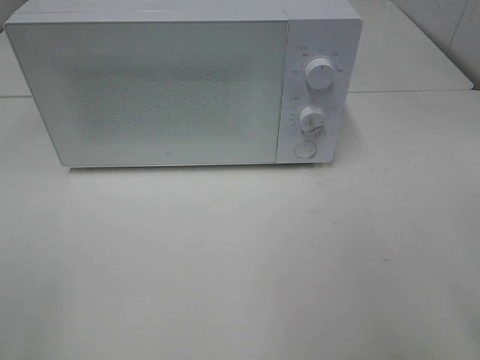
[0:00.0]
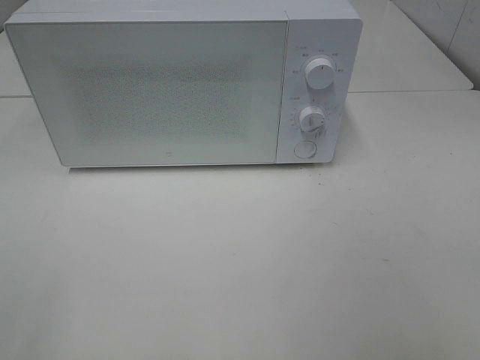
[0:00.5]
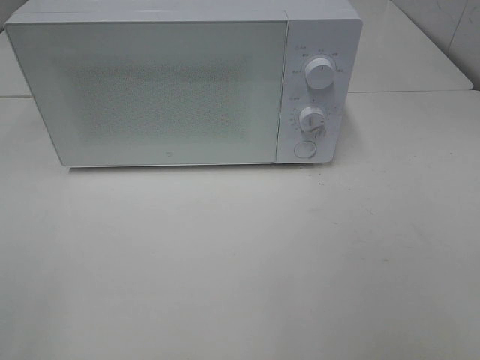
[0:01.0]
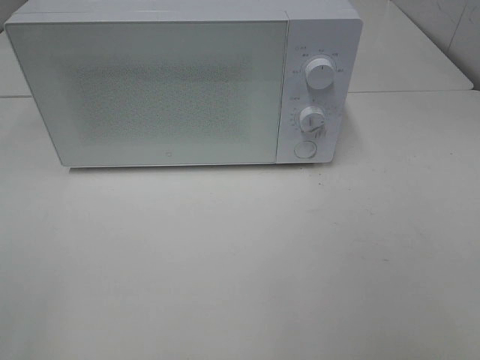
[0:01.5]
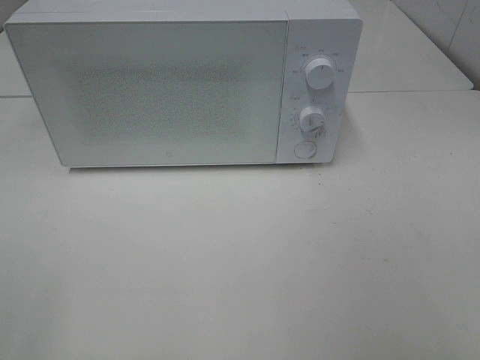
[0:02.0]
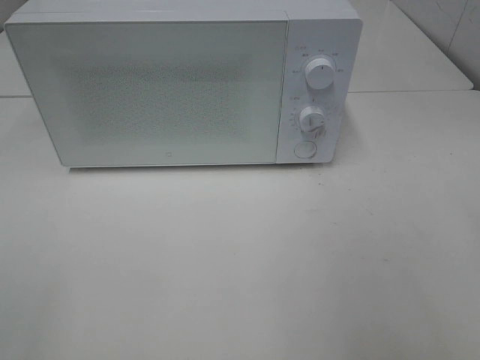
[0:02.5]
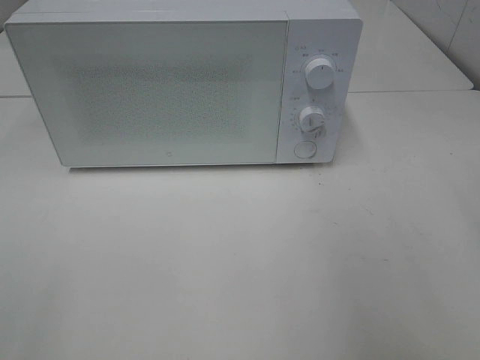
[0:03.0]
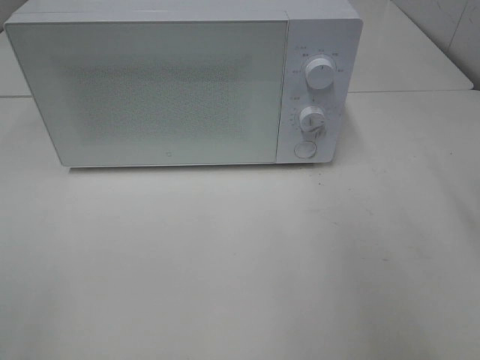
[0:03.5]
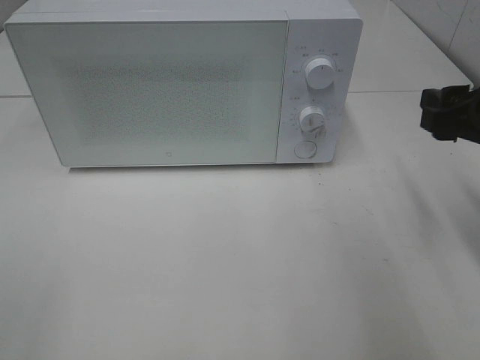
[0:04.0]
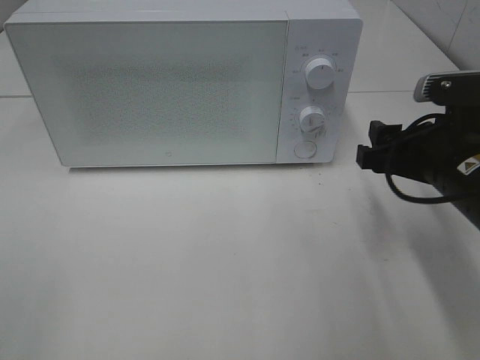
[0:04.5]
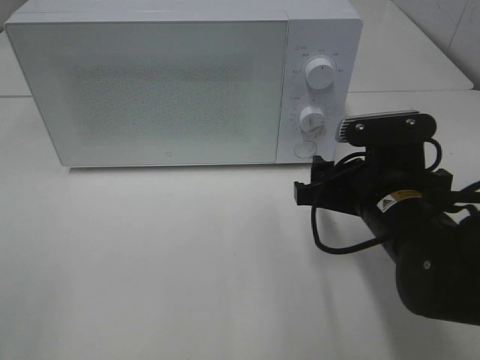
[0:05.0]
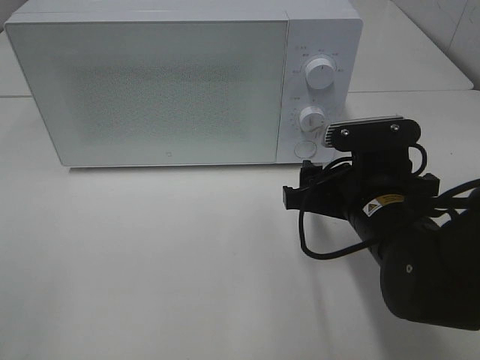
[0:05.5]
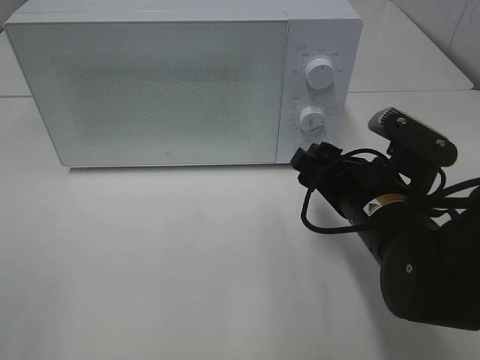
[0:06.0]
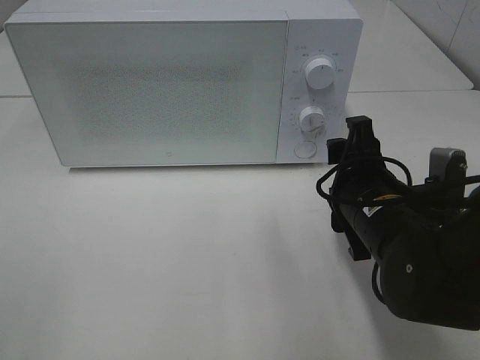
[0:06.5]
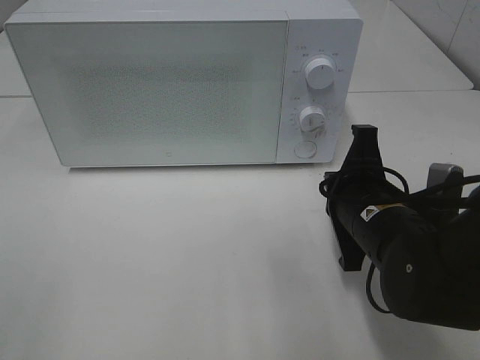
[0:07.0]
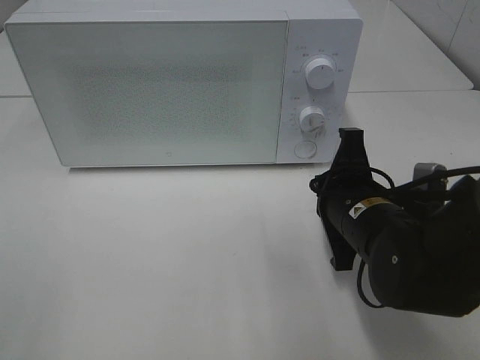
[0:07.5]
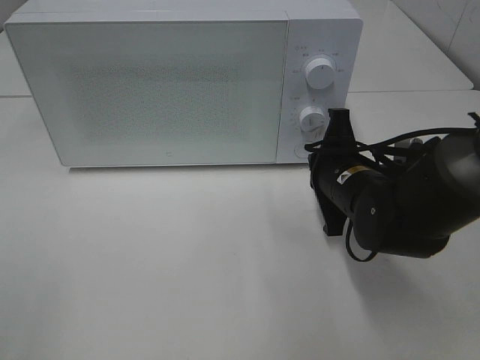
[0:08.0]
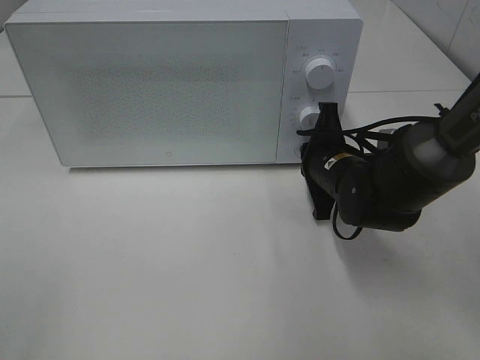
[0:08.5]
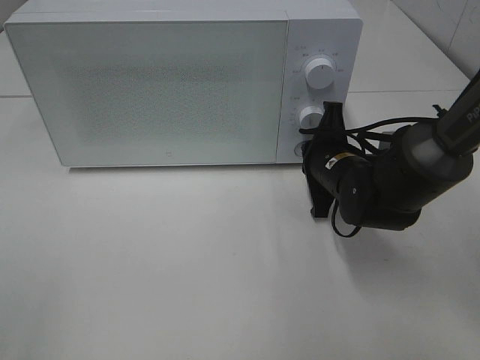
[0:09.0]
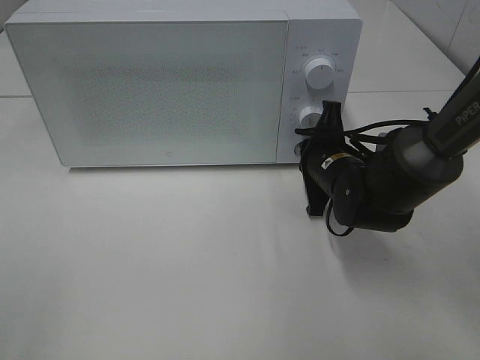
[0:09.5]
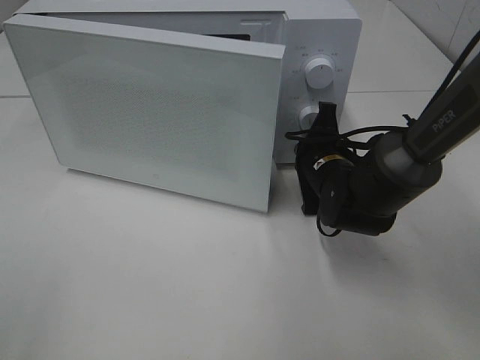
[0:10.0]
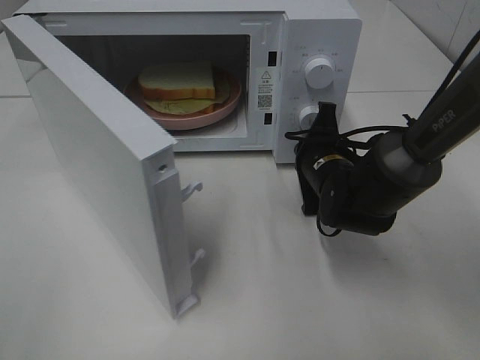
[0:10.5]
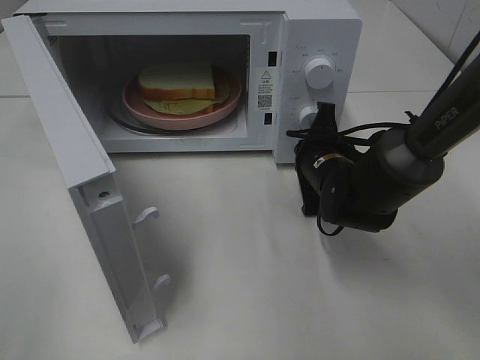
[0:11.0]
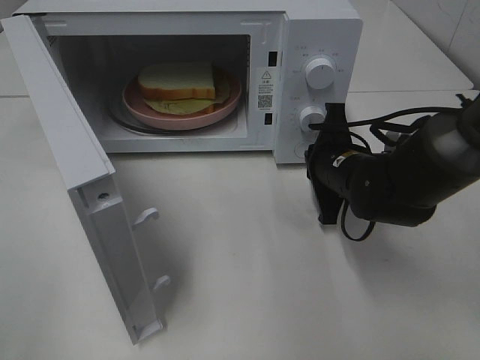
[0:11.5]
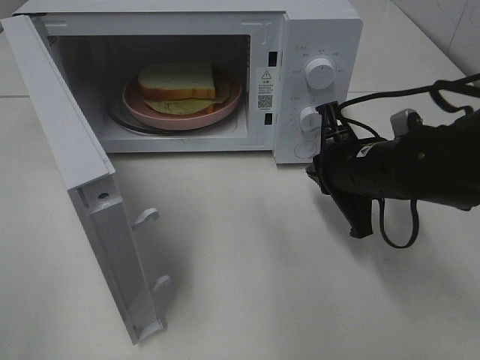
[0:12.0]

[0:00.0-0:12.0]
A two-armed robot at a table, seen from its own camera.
Task of the whole recording: Heat Sandwich.
Step, 0:00.0 to 0:11.5: Right hand: press the switch.
0:02.0 to 0:04.0: The right gripper travels forward by some 25 cm.
0:04.0 to 0:06.0: The right gripper moves to the left and downward, about 15 cm.
0:06.0 to 0:08.0: The right gripper heads forward, covering about 5 cm, and closes up.
0:08.0 to 0:10.0: The right gripper travels forward by some 5 cm.
0:10.0 to 0:12.0: The right gripper moves backward and upward, approximately 10 cm.

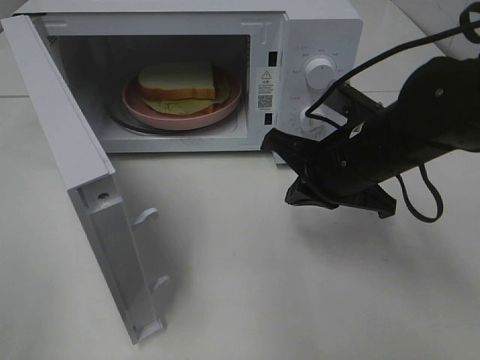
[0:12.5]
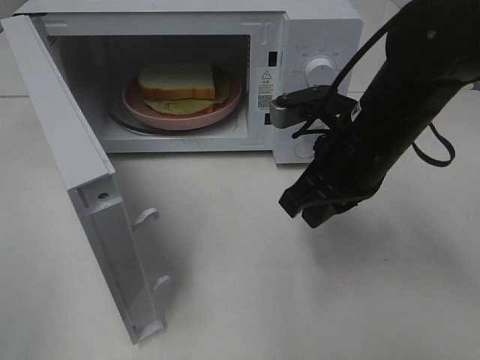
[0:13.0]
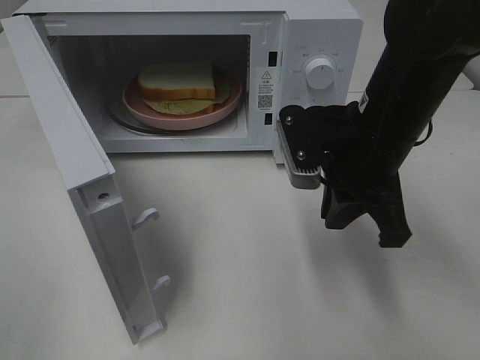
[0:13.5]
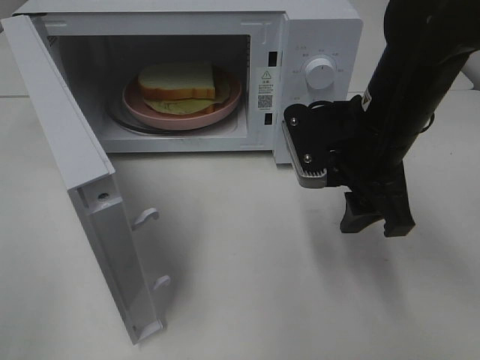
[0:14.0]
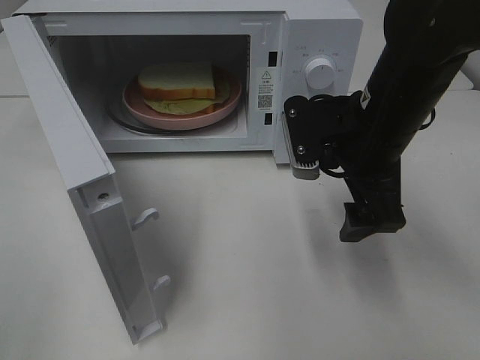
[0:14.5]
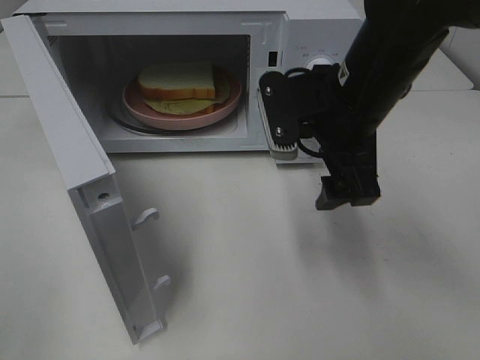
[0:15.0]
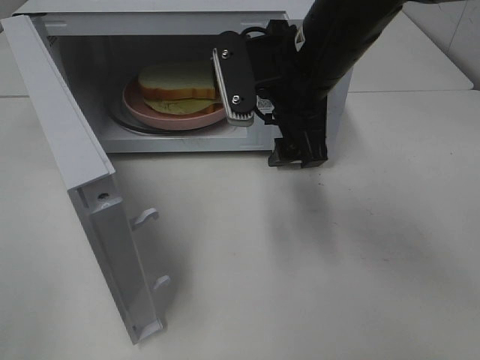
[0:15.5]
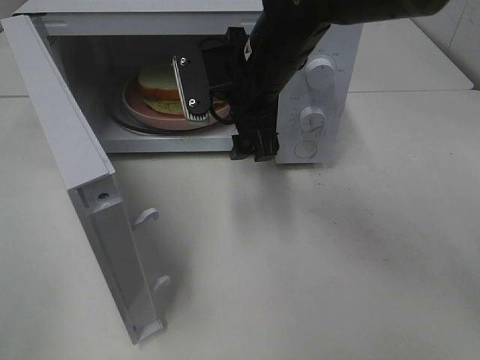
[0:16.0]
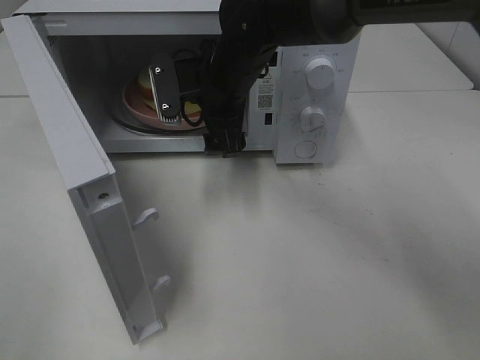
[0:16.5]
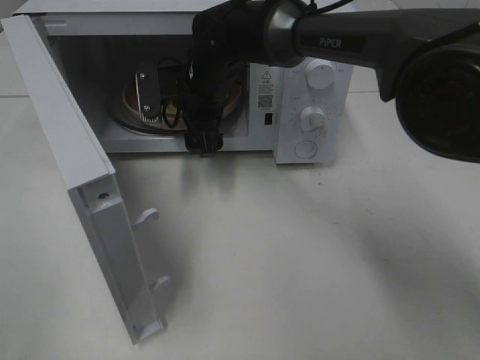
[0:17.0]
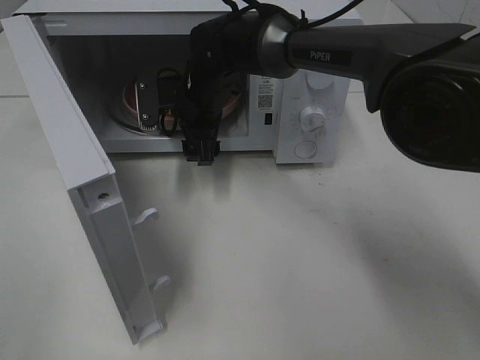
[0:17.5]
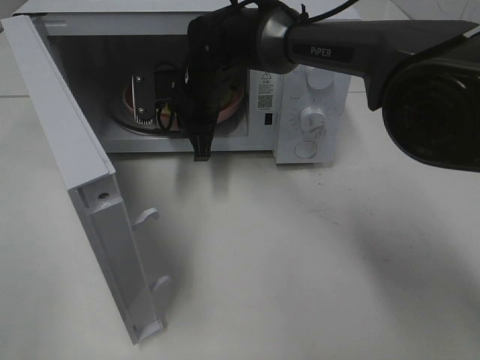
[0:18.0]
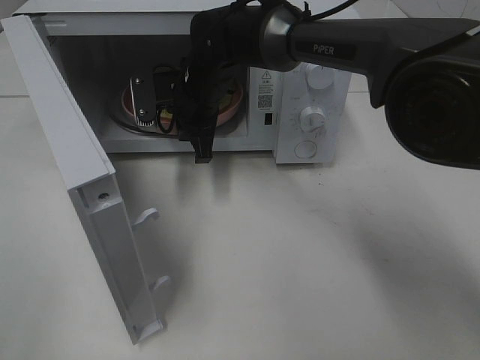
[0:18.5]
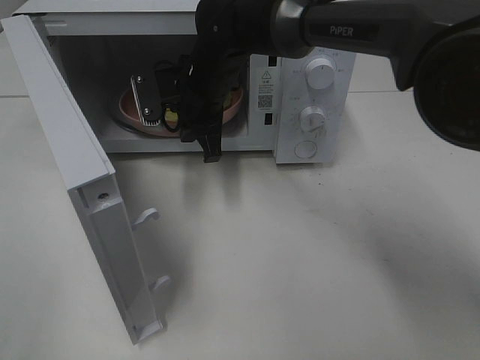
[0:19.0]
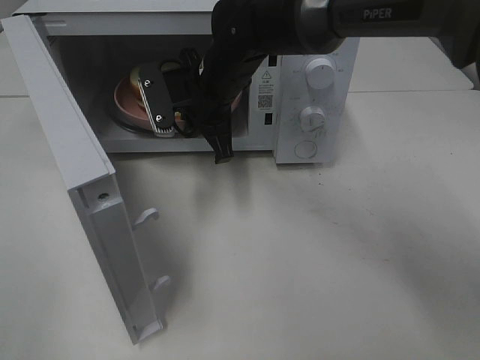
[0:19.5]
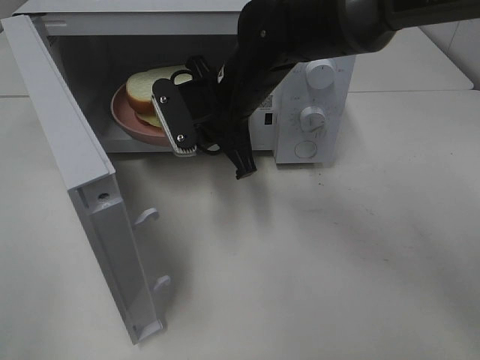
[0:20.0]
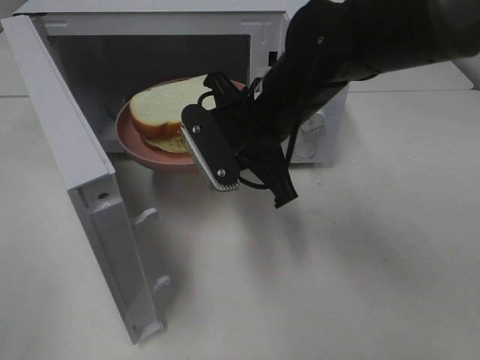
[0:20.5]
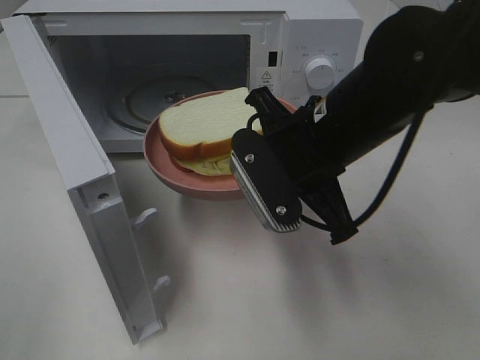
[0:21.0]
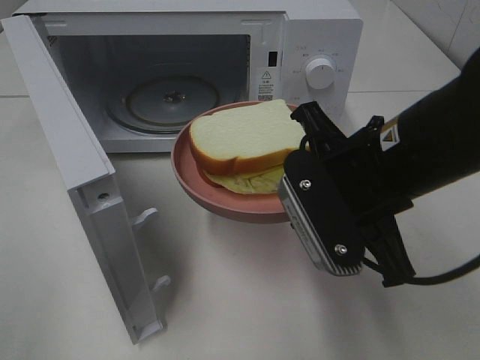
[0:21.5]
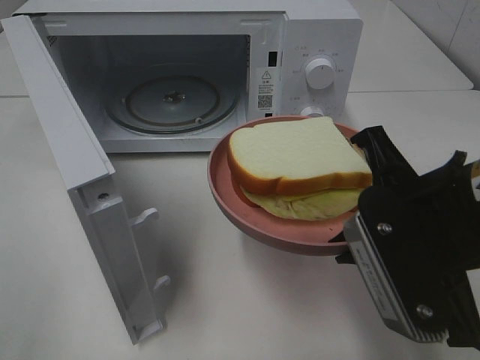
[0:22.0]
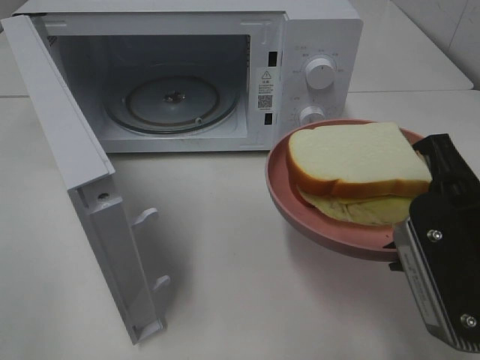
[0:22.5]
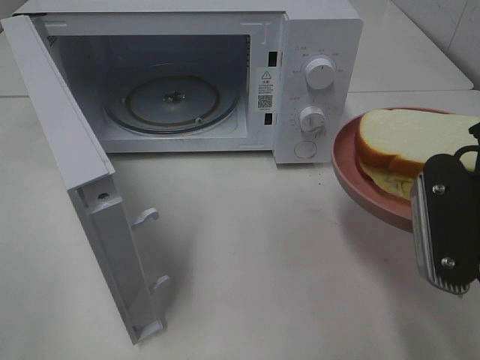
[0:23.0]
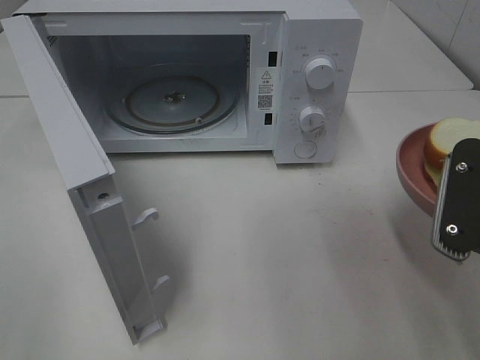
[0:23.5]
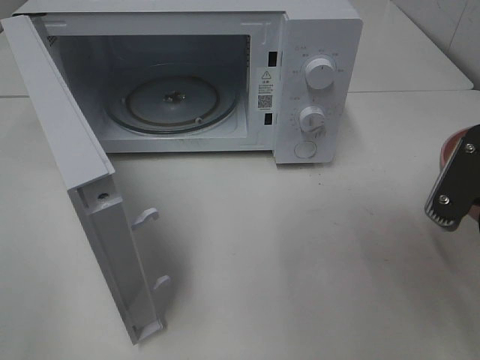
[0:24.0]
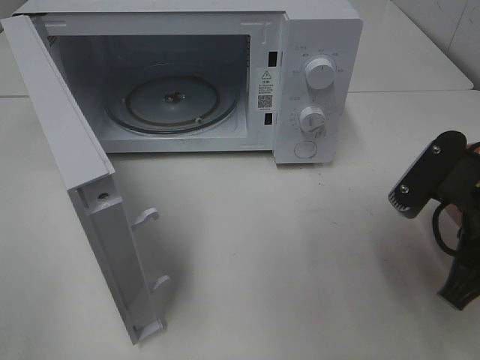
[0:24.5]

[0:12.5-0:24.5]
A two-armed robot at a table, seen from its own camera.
Task of the whole recording: Heat Sandwich.
Step, 0:12.5 to 0:18.0: Right hand: grab the plate with the sandwich.
0:12.5 to 0:14.5: The right gripper opens its fingers.
0:14.5 to 0:16.5: The right gripper goes some 20 cm to the left and forward.
0:16.5 to 0:18.5: The right gripper moves roughly 5 cm, and closes.
0:18.5 to 0:20.5: The right gripper heads backward and to the right, covering roughly 15 cm.
0:20.5 to 0:22.5: The right gripper is displaced backward and to the right by roughly 20 cm.
0:22.5 to 0:24.5: The right gripper shifts by some 5 cm.

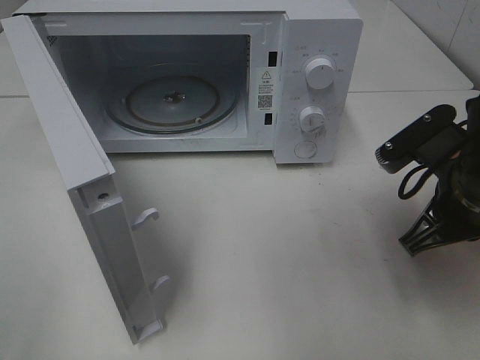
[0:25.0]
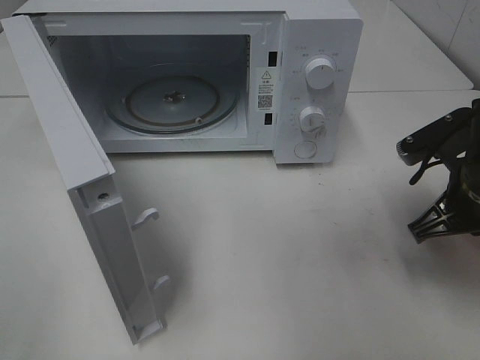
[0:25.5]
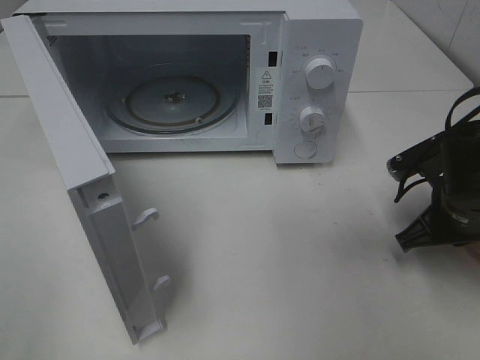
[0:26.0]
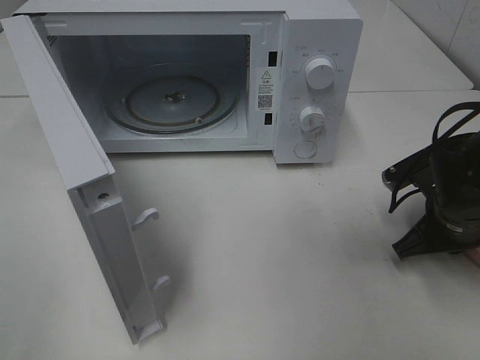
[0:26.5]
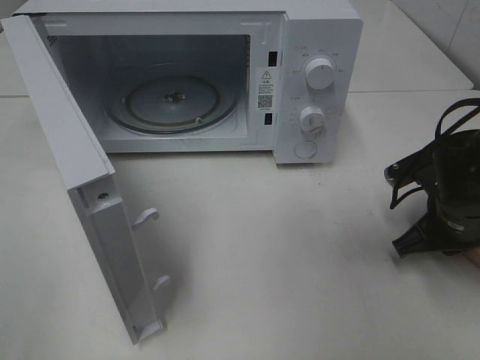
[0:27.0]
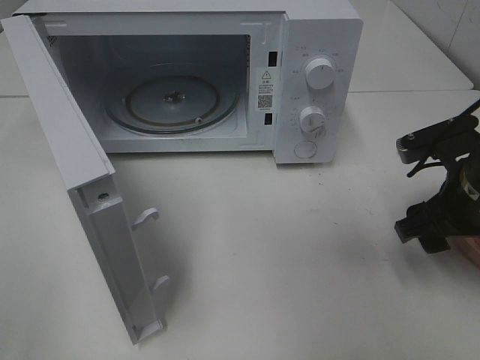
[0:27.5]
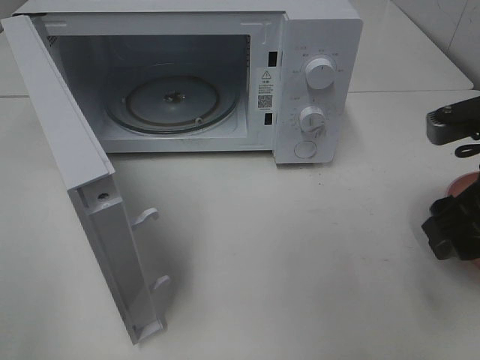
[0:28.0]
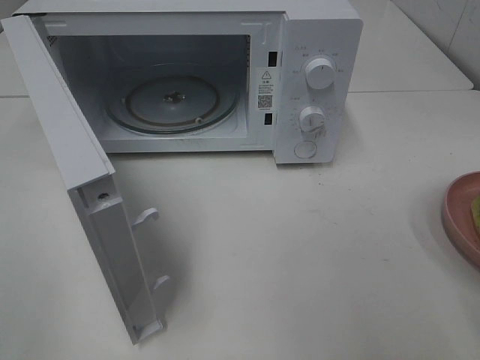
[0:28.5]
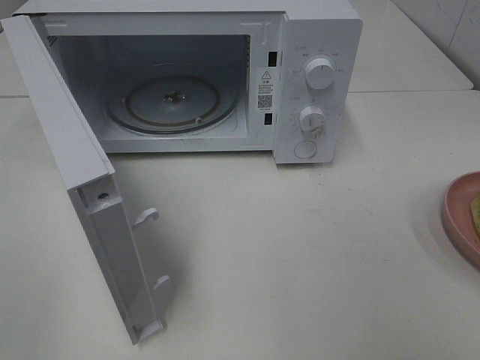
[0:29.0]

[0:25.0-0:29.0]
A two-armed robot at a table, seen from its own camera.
Task of the whole recording: Heat Sandwich.
Step, 0:25.0 to 0:28.0: Right hand: place the plate on the table.
0:25.0 to 0:27.0: The right gripper is displaced downward by roughly 10 cm.
0:27.0 to 0:29.0: The right gripper heads backward and upward, covering about 30 cm, and opens up.
